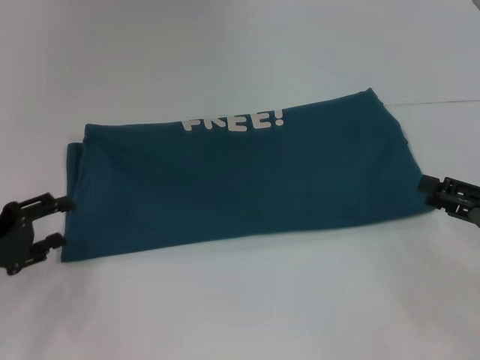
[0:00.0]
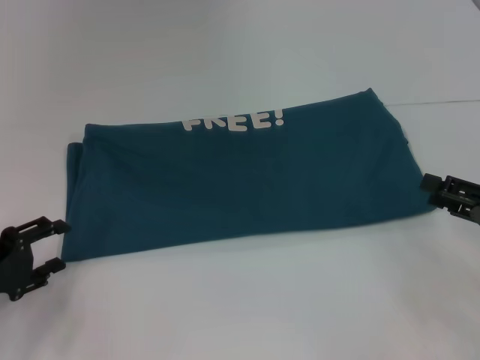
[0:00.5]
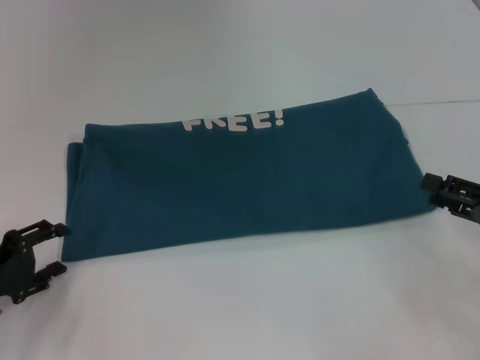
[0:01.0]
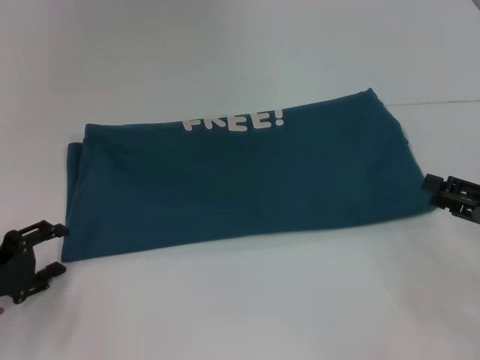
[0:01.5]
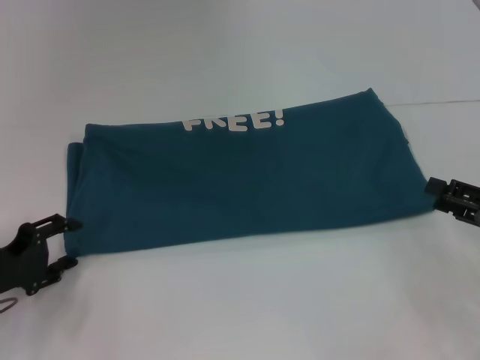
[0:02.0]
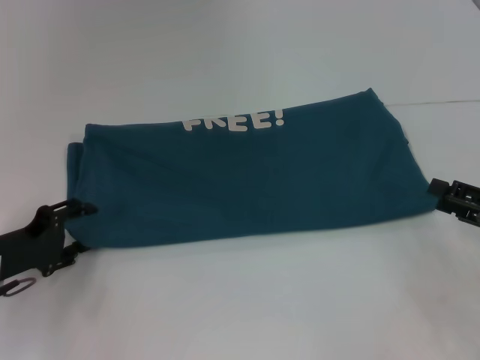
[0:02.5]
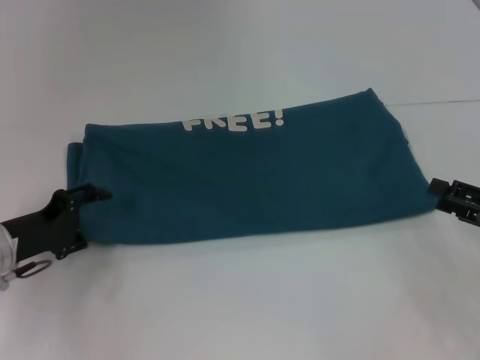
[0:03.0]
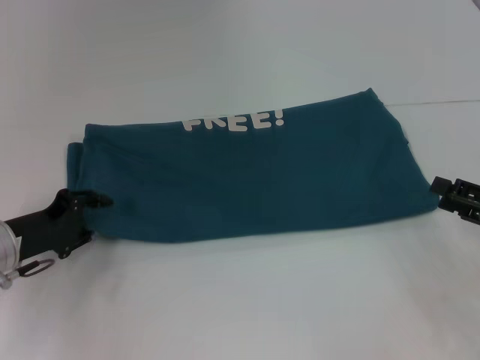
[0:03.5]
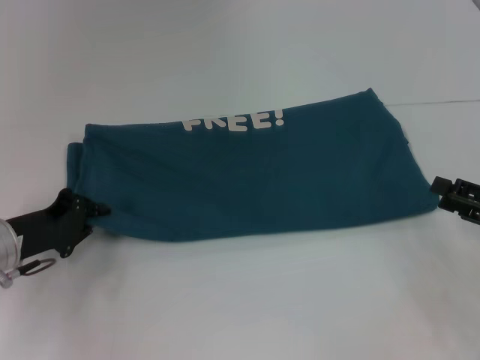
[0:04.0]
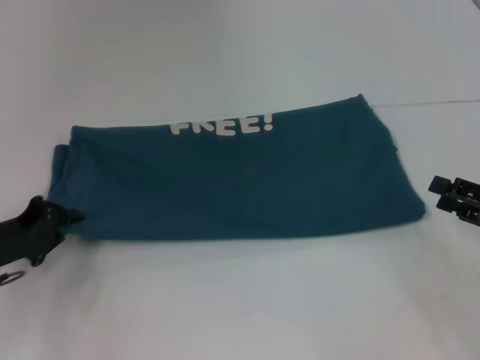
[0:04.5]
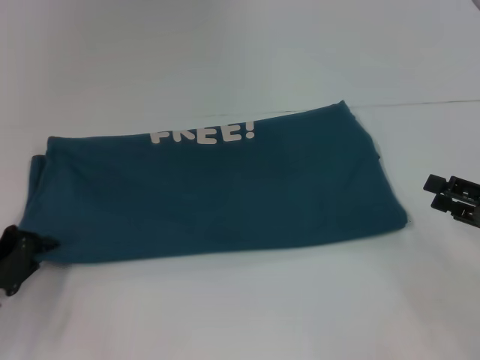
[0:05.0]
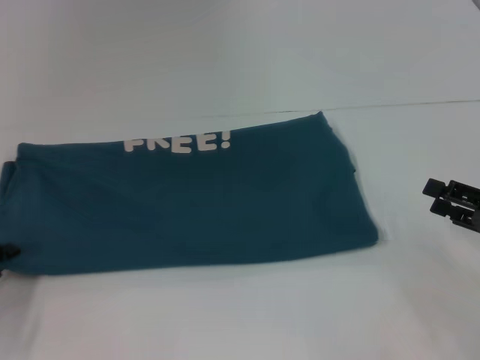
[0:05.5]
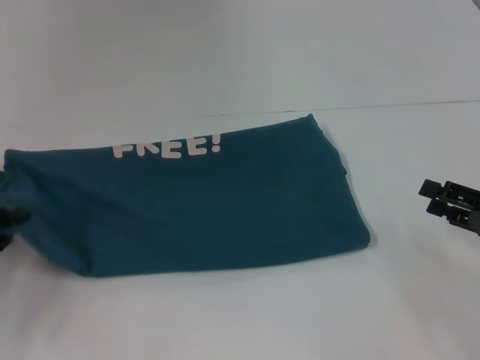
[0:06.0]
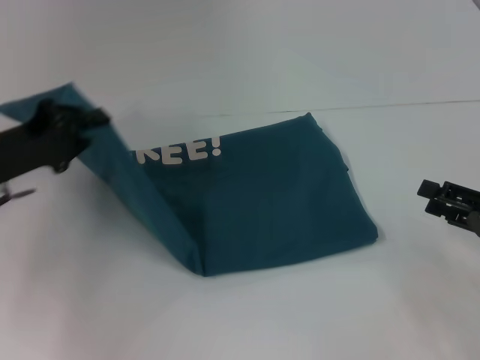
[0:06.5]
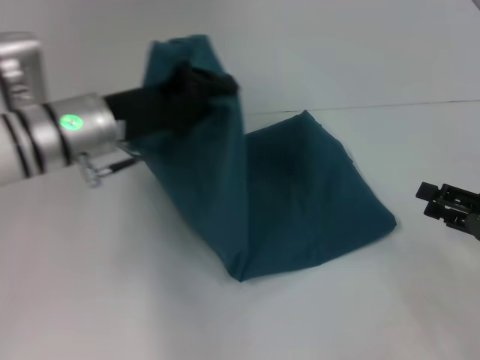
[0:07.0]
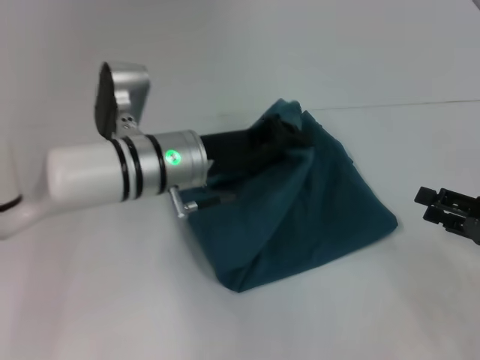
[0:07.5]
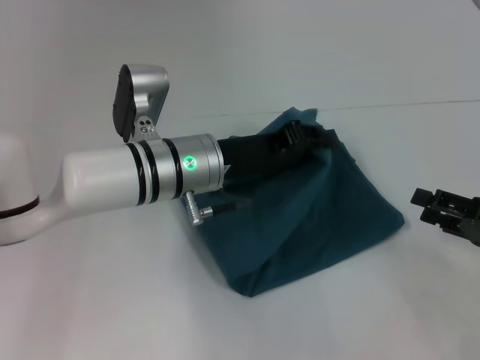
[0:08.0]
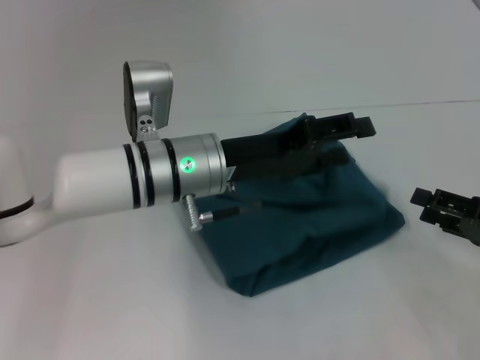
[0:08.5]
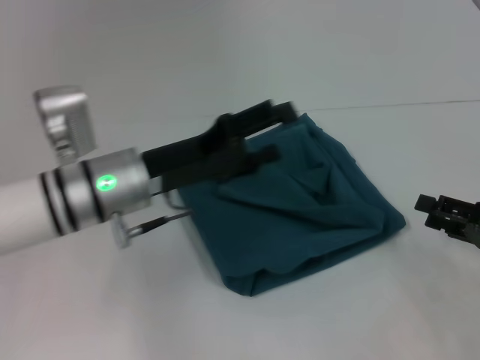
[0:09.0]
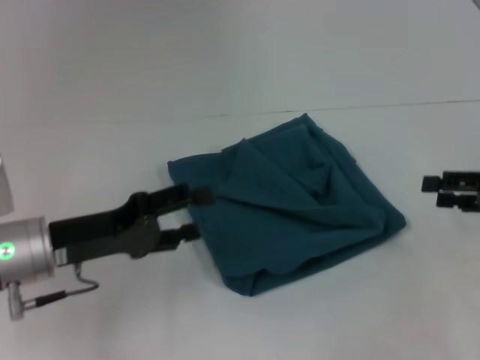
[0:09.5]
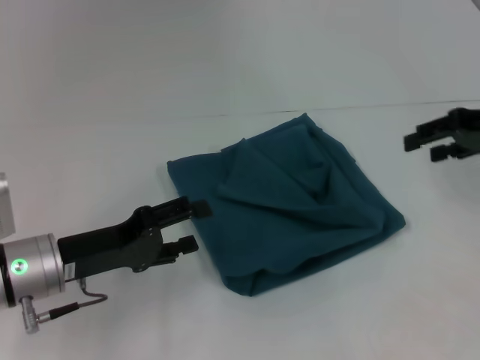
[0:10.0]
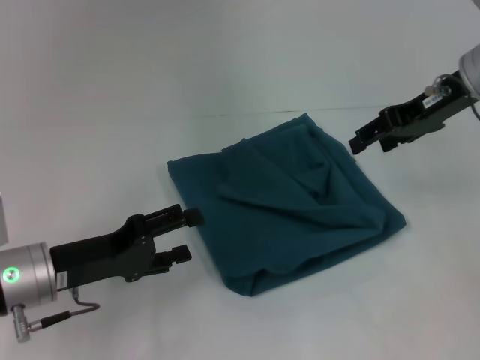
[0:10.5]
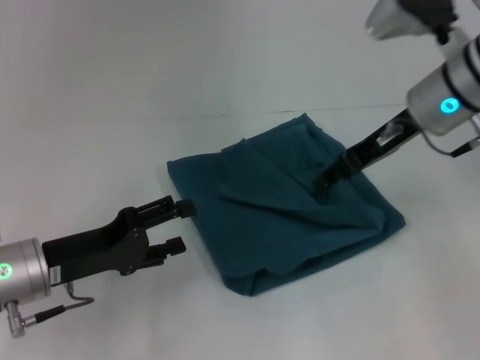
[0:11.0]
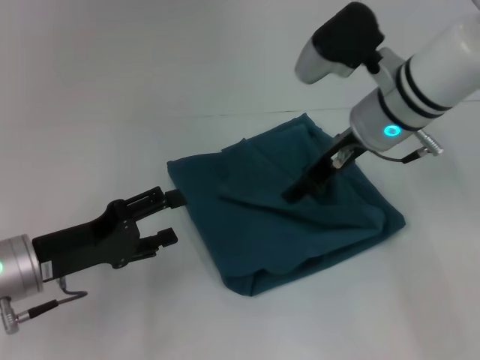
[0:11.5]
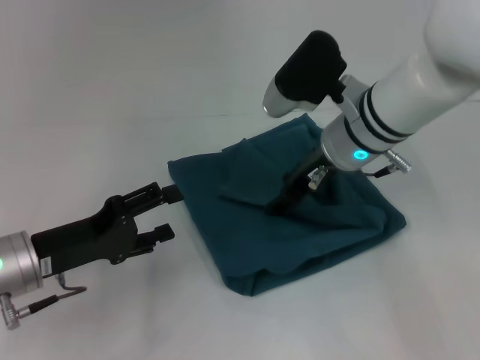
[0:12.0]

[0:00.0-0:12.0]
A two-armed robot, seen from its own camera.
Step, 0:00.0 to 0:08.5: Fold the clothes to the left.
0:00.0 to 0:02.0: There are only small adjustments of the grippers.
0:02.0 to 0:04.0: The left gripper ends up about 5 cm from where it was, and closes its fingers.
0:04.0 to 0:06.0: The left gripper is displaced to the left and backward by about 10 cm.
0:06.0 to 0:08.0: The left gripper shifts some 30 cm to the right.
0:08.0 to 0:10.0: The right gripper heads upward and forward, covering some 20 cm. The left gripper is displaced to the left and backward by approximately 15 cm, and opens up.
0:10.0 to 0:12.0: The right gripper heads to the left, covering approximately 20 cm.

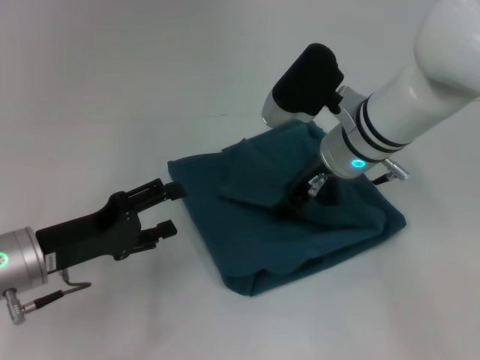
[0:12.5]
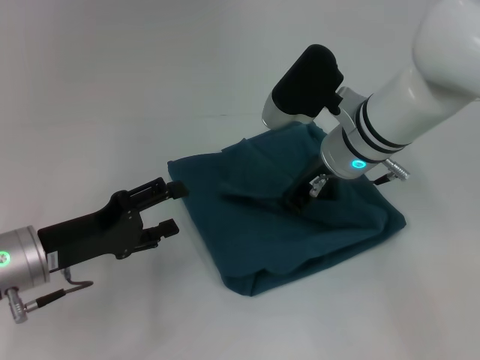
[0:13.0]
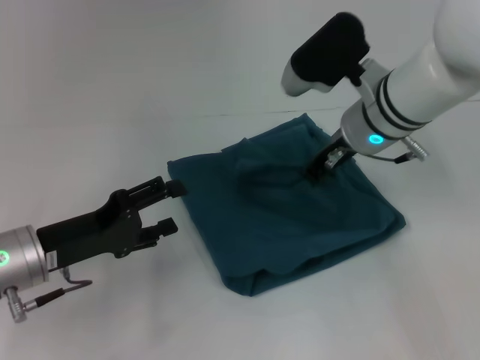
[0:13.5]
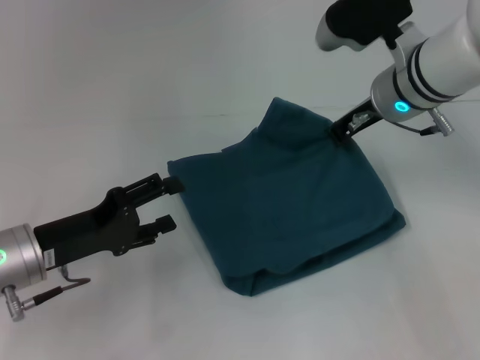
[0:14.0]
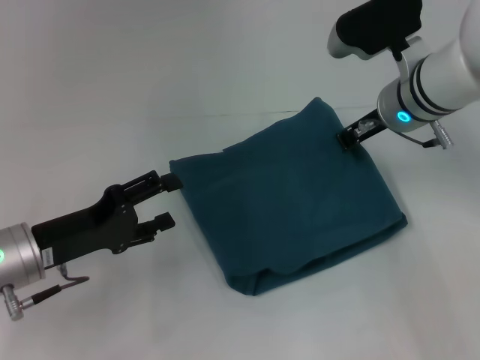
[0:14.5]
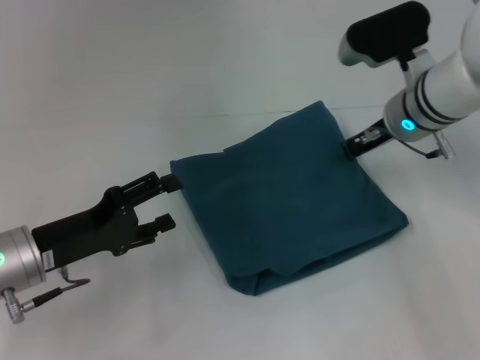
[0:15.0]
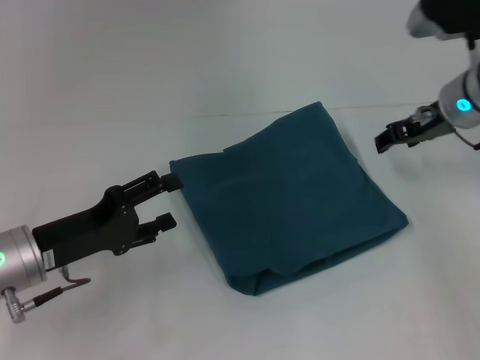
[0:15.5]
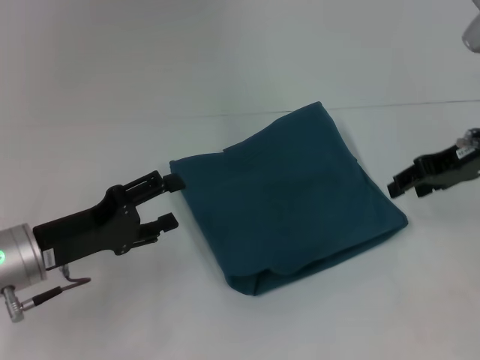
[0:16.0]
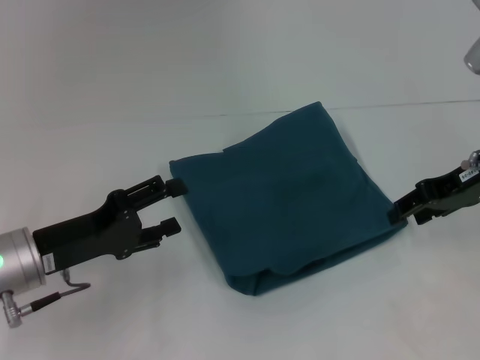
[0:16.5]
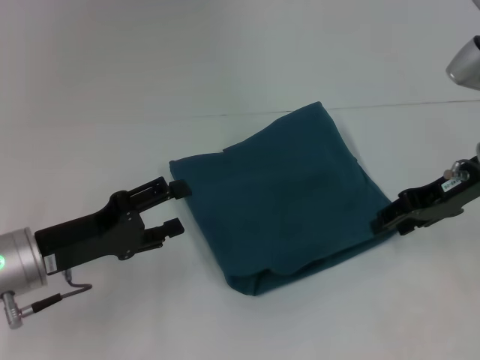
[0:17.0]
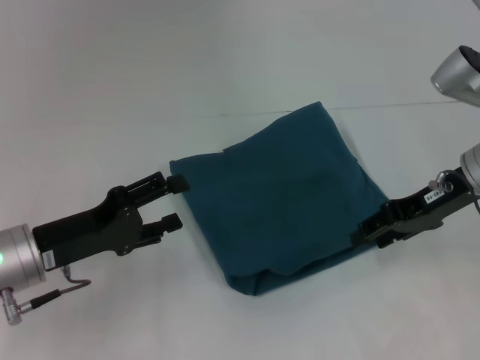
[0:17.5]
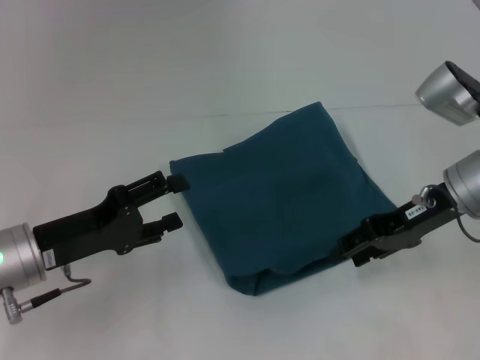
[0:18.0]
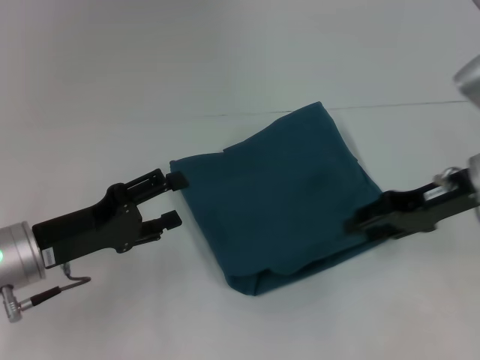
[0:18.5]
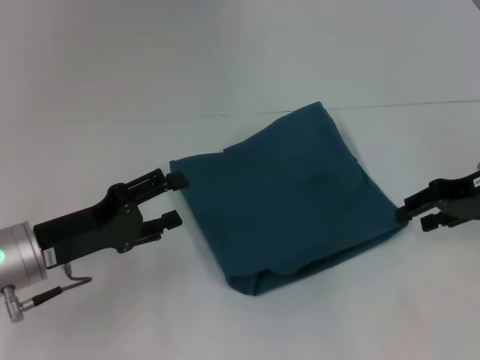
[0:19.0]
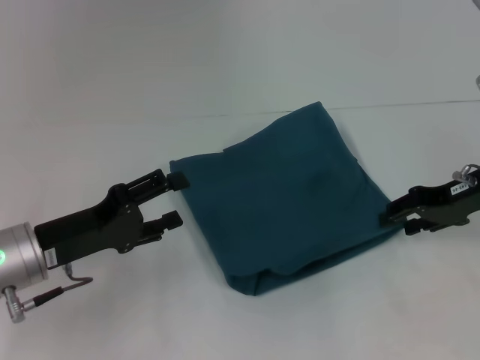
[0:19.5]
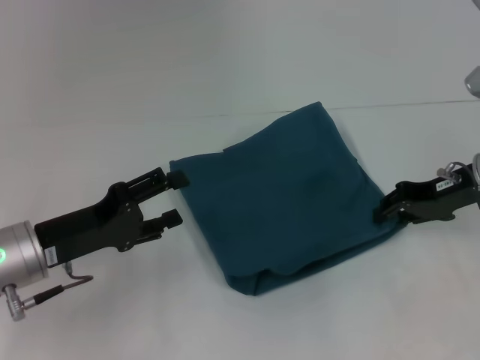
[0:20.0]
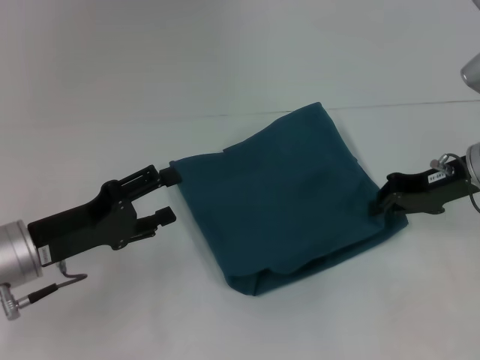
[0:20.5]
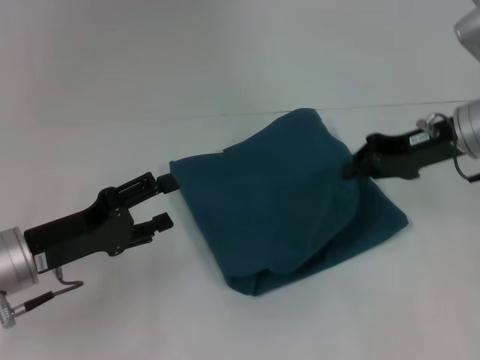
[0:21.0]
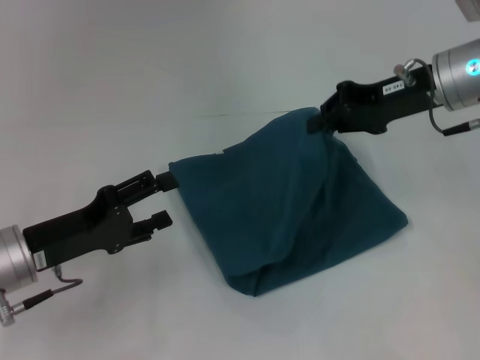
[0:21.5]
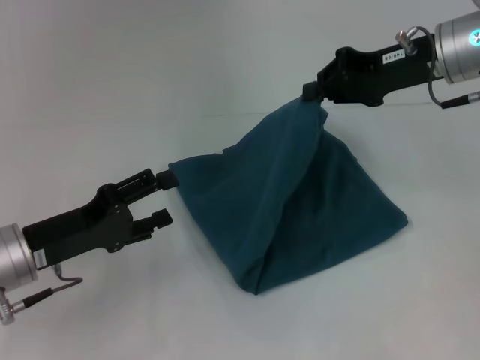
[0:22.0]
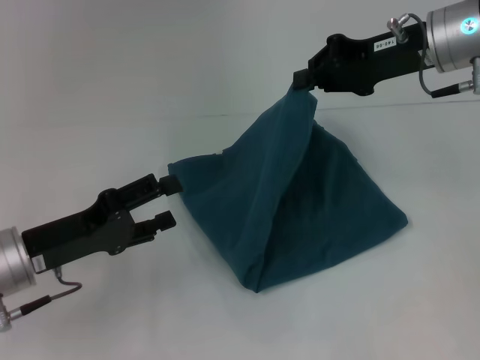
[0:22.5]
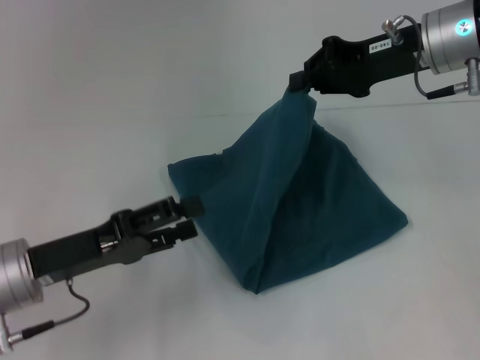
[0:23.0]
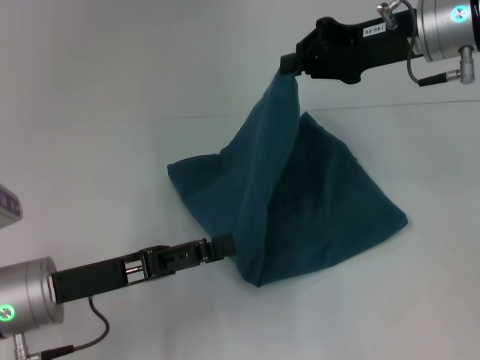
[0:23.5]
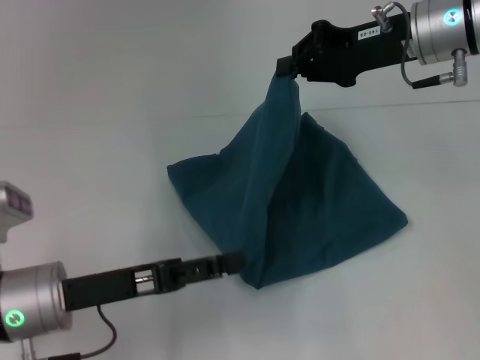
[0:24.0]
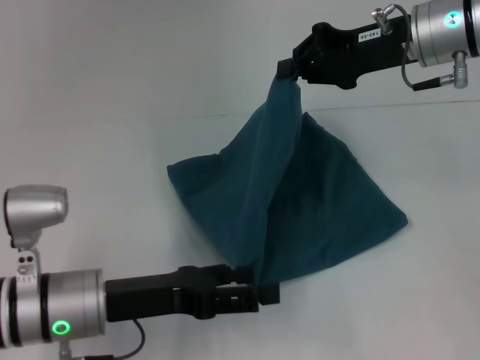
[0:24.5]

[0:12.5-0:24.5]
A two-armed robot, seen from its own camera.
0:12.5 to 0:14.5: The right gripper travels to the right by approximately 5 cm, and closes up.
0:14.5 to 0:16.5: The right gripper goes some 10 cm to the right and backward, and opens up.
0:18.5 to 0:20.5: The right gripper closes.
0:20.5 to 0:22.5: The right gripper heads upward and to the left, covering some 10 cm.
0:22.5 to 0:24.5: The left gripper moves to the right, approximately 5 cm.

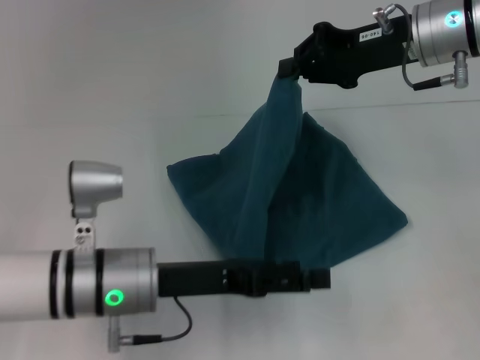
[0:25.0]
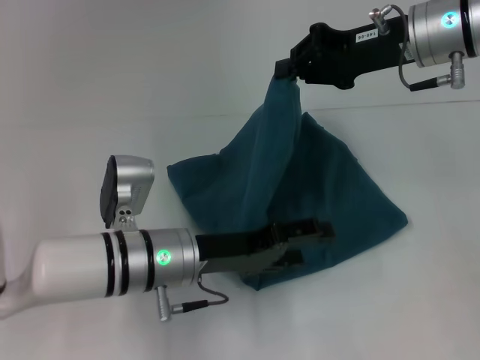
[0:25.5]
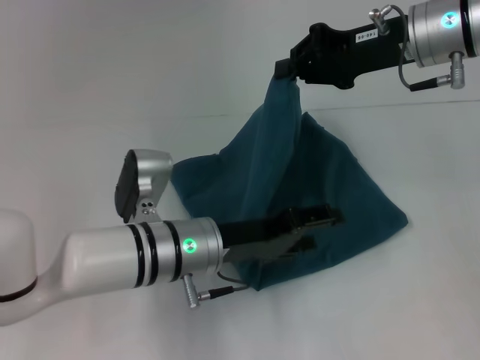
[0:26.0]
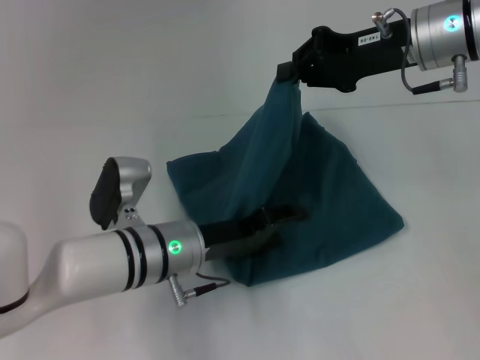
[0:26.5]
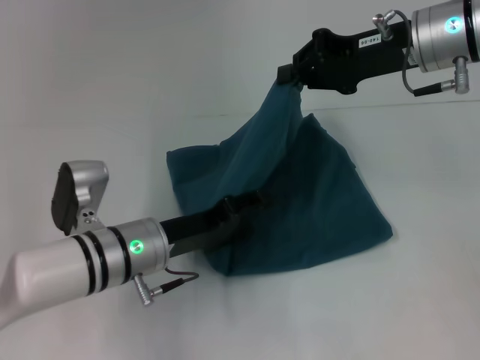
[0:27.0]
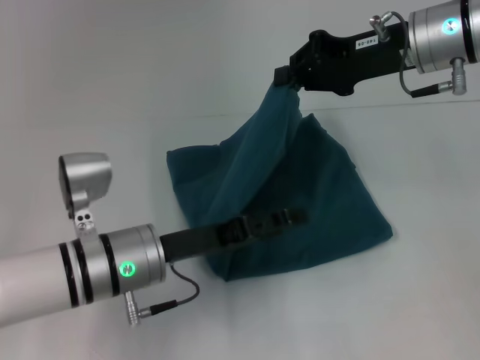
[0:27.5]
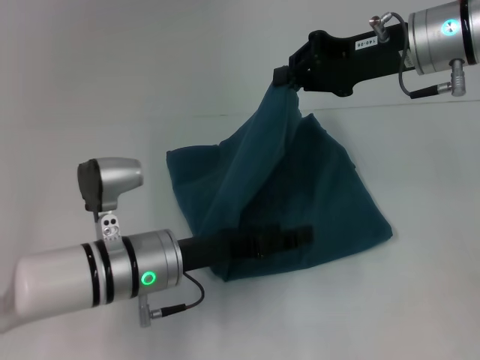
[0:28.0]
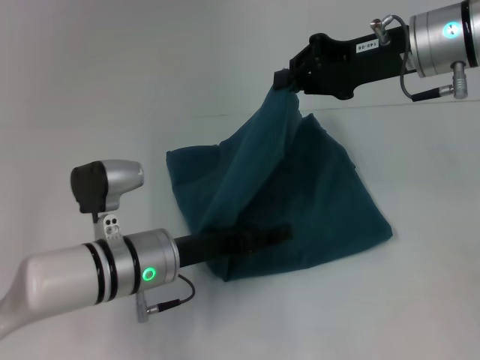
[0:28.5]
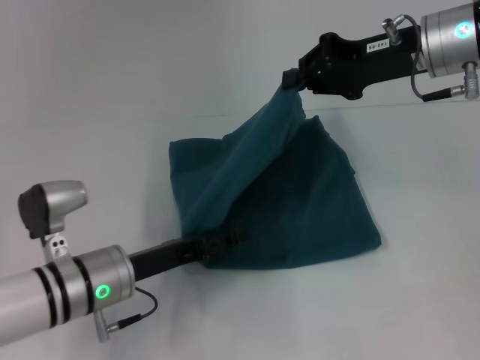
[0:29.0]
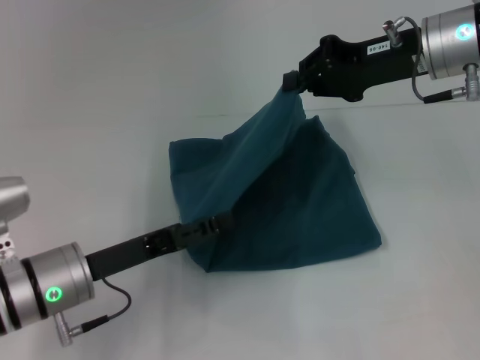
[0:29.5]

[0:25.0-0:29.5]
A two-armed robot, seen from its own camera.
0:27.0 to 0:29.5: The left gripper goes roughly 5 cm to the left.
